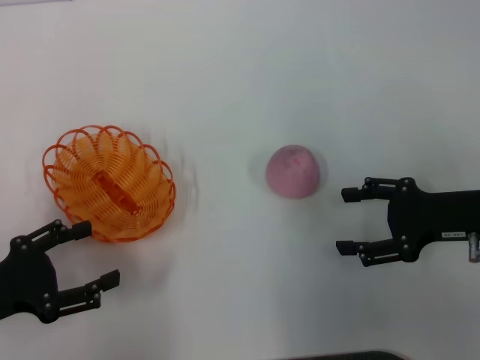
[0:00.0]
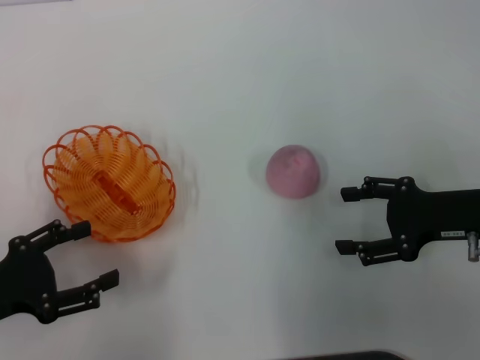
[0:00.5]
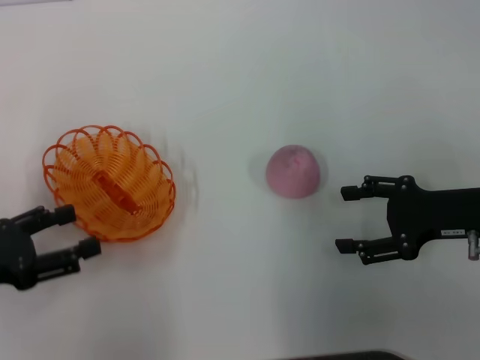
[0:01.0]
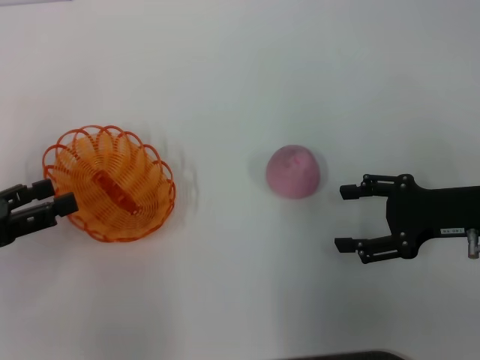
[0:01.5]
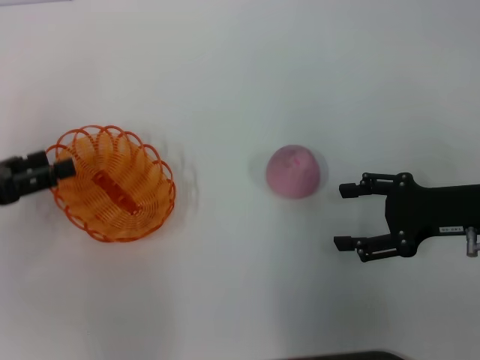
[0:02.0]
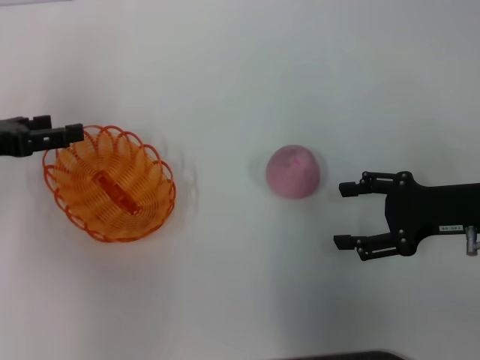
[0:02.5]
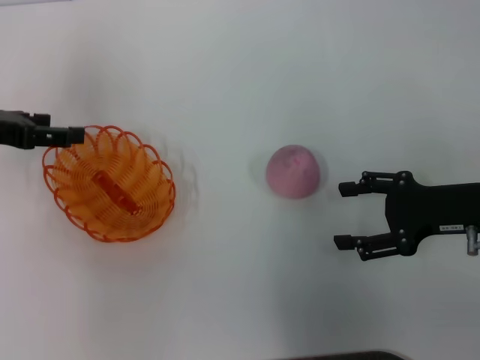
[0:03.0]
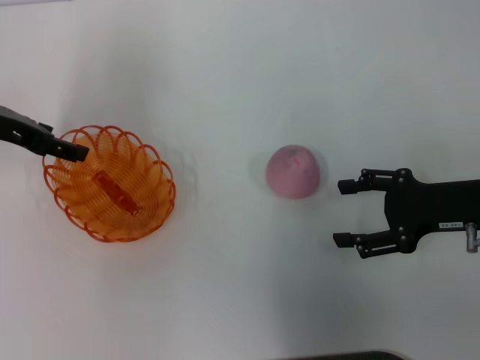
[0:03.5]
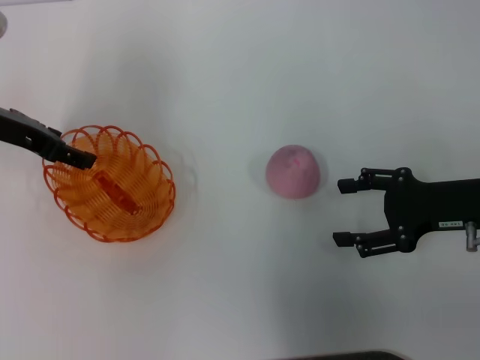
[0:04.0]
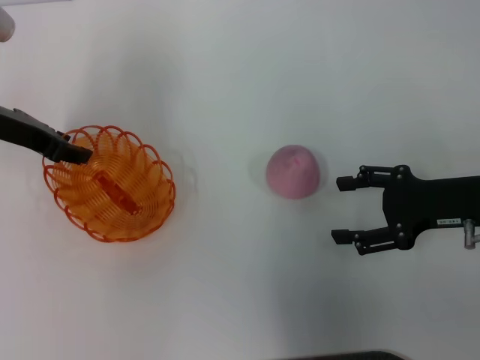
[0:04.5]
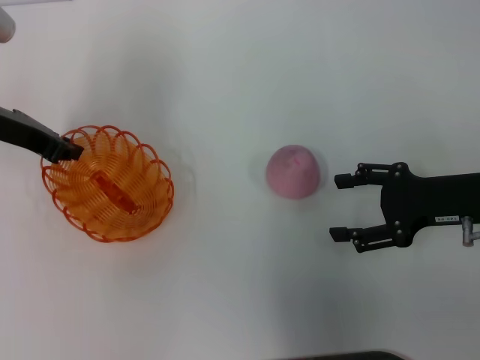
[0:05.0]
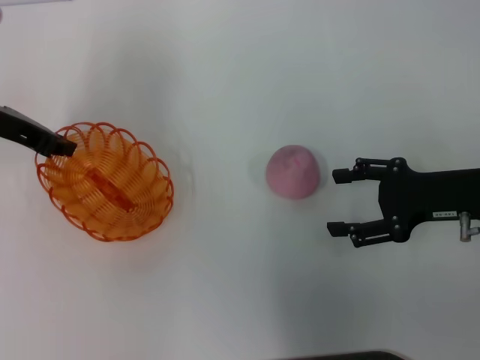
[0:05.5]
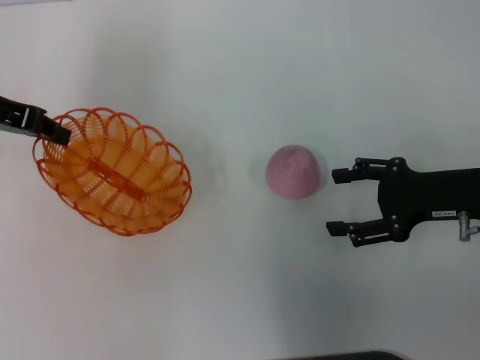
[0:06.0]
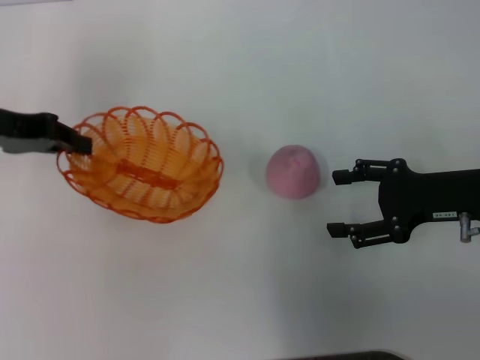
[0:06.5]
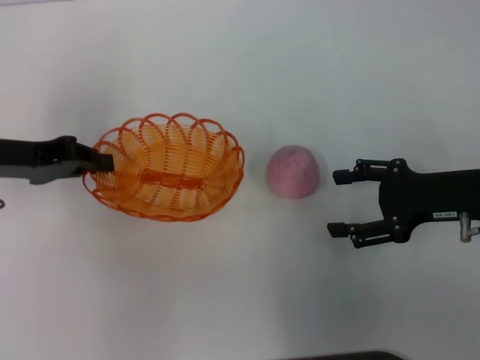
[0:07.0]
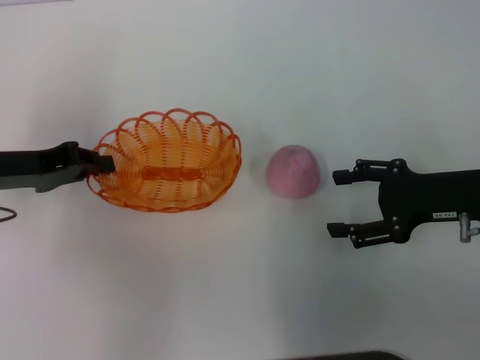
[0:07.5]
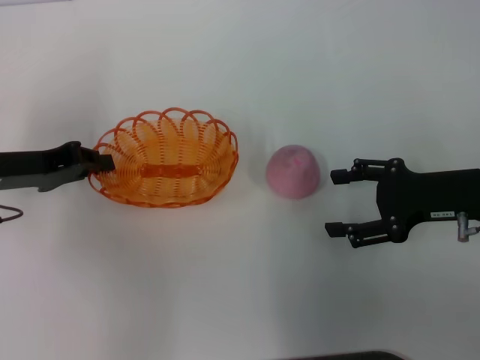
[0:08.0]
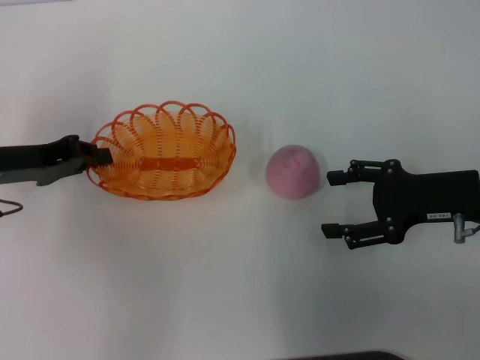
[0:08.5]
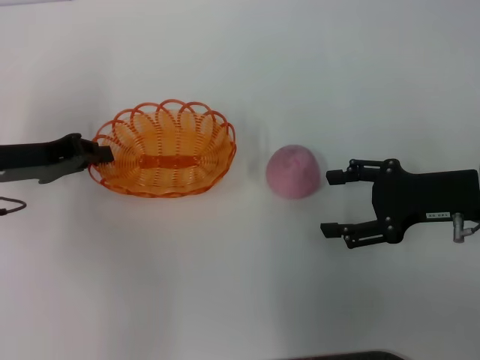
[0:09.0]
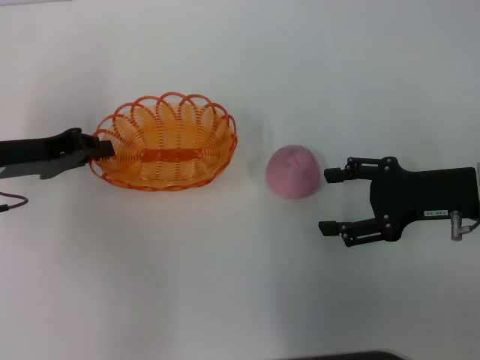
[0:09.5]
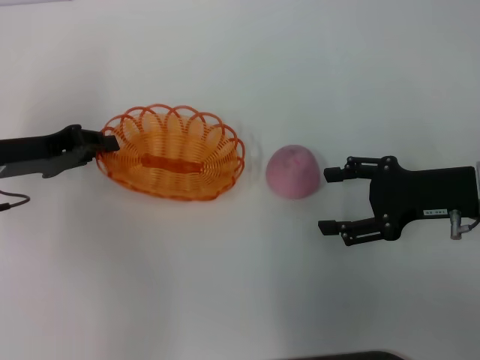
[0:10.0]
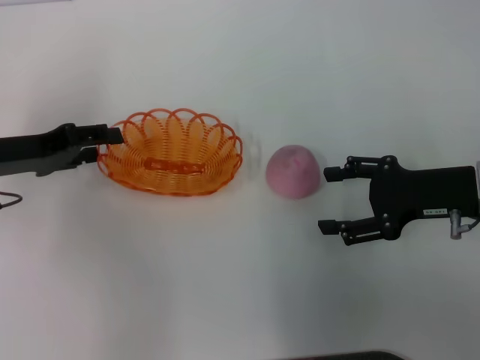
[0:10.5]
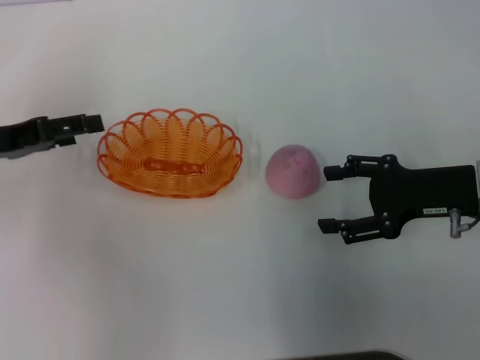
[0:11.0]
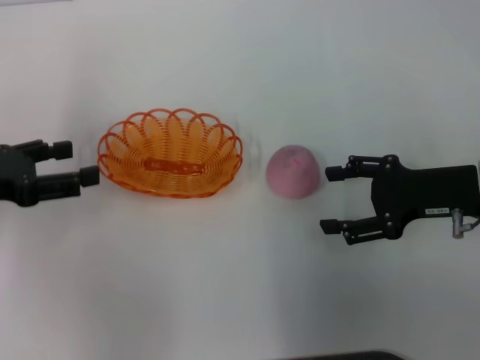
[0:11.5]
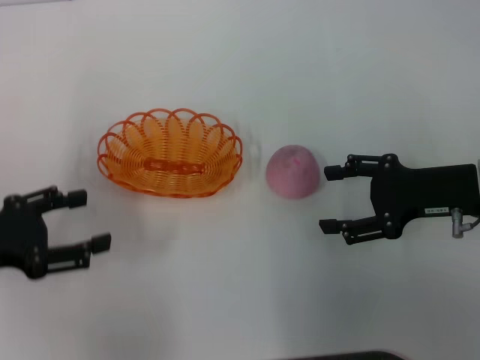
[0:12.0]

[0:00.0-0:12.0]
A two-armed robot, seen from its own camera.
Step, 0:00.0 to 0:05.5: Pick up the basket with the left gripper.
Step, 0:06.0 to 0:11.0: Place the basket in the center of view with the left gripper.
0:00.0 to 0:02.0: The left gripper shifts approximately 5 cm forward.
0:02.0 to 0:04.0: The left gripper travels forward and to the right by roughly 15 cm.
0:04.0 to 0:06.0: The left gripper closes.
0:06.0 to 0:08.0: The left gripper shifts some 10 cm downward and backward.
0:08.0 to 0:10.0: Neither gripper changes place.
0:10.0 to 0:12.0: The left gripper moves backward, about 10 cm, and opens up.

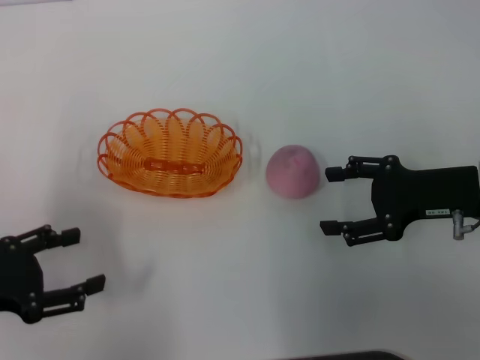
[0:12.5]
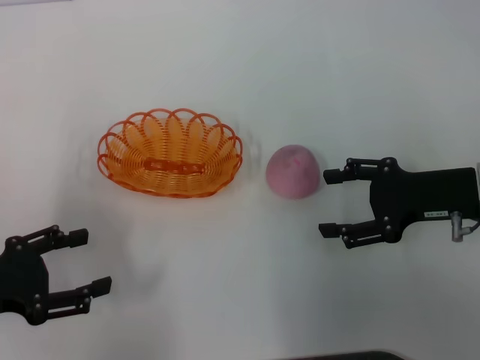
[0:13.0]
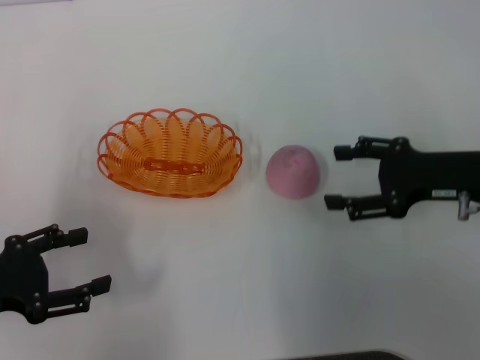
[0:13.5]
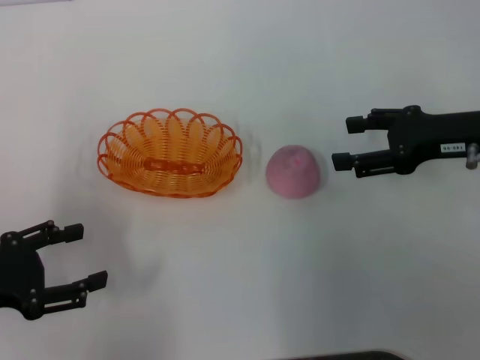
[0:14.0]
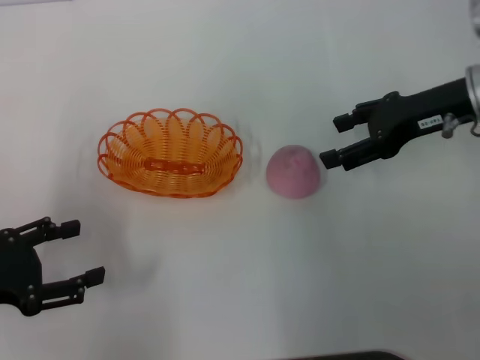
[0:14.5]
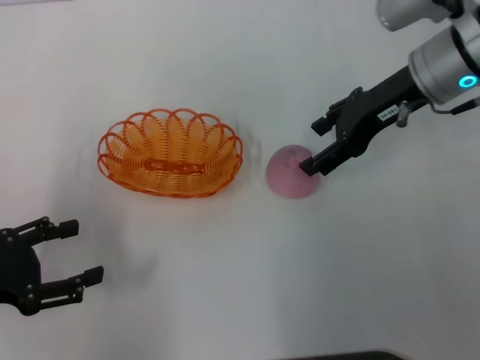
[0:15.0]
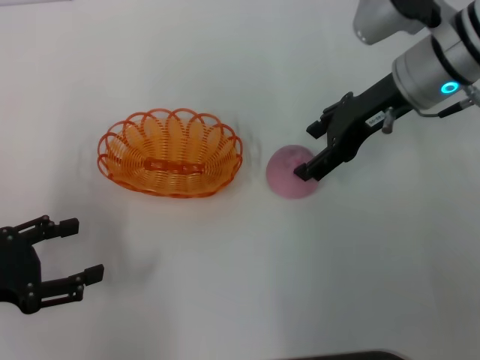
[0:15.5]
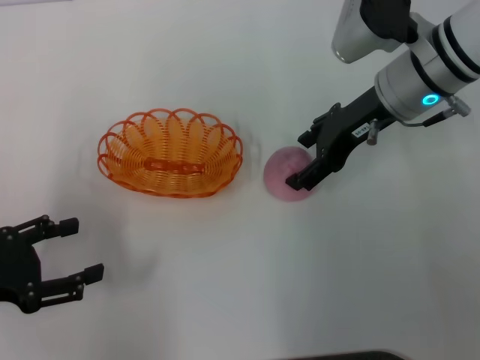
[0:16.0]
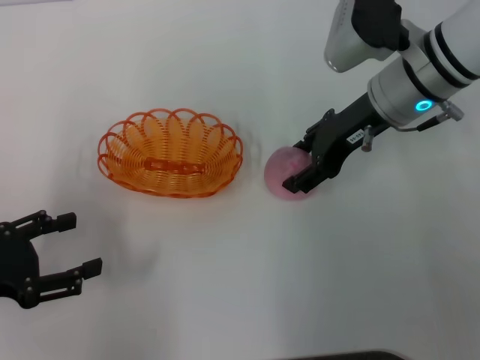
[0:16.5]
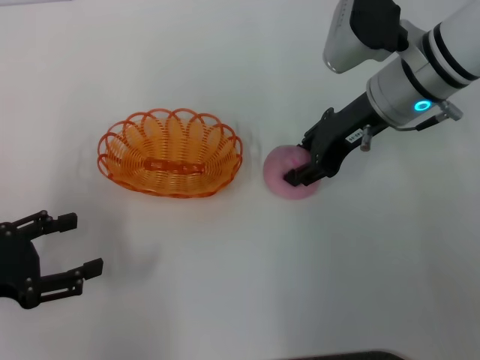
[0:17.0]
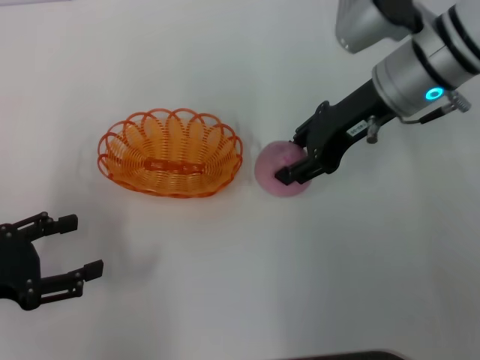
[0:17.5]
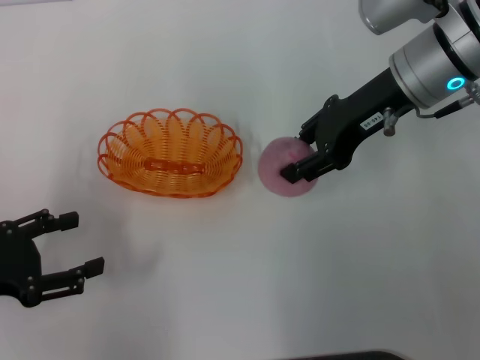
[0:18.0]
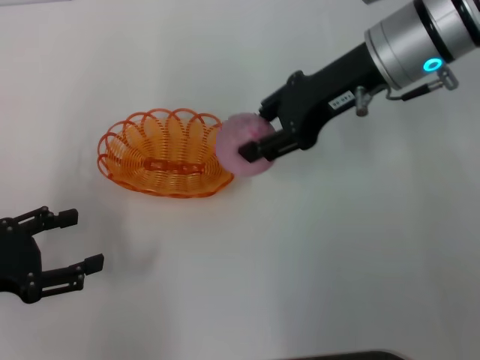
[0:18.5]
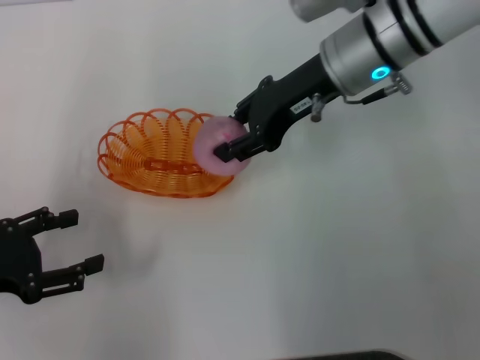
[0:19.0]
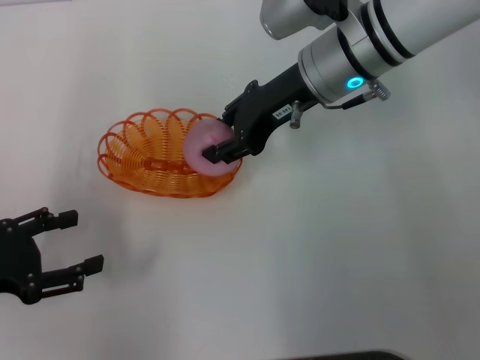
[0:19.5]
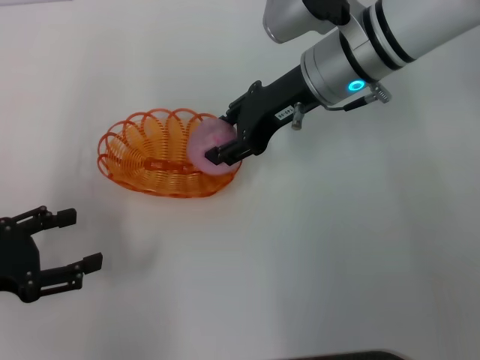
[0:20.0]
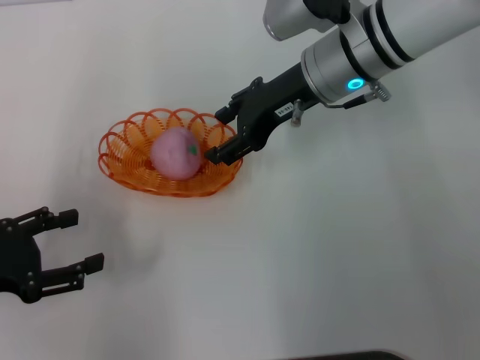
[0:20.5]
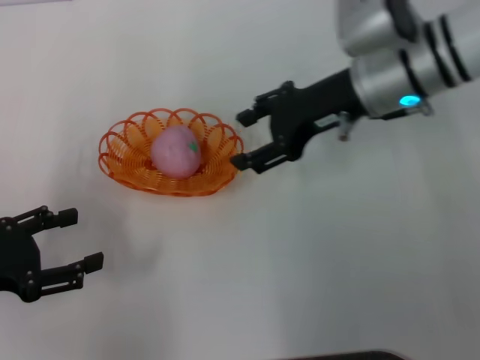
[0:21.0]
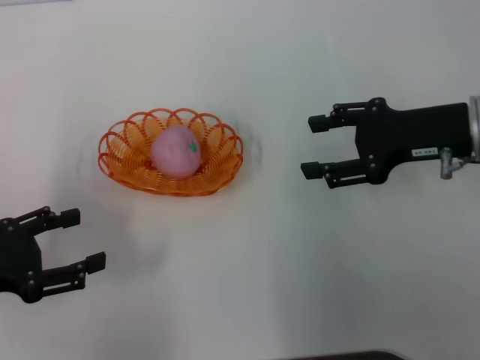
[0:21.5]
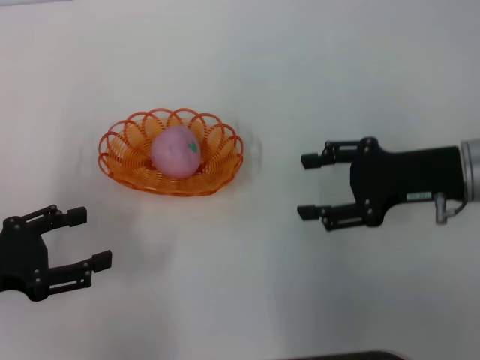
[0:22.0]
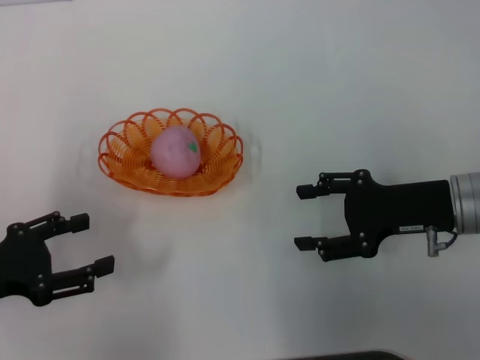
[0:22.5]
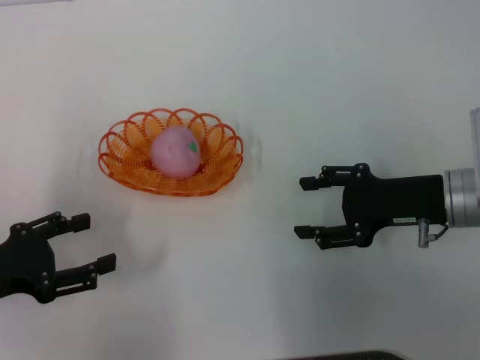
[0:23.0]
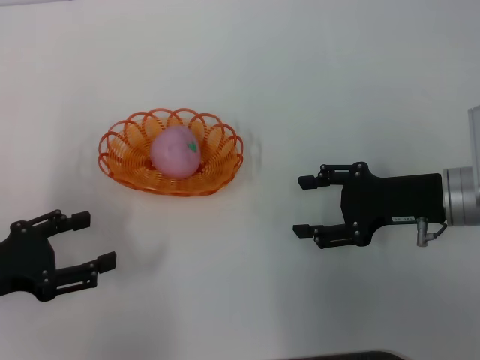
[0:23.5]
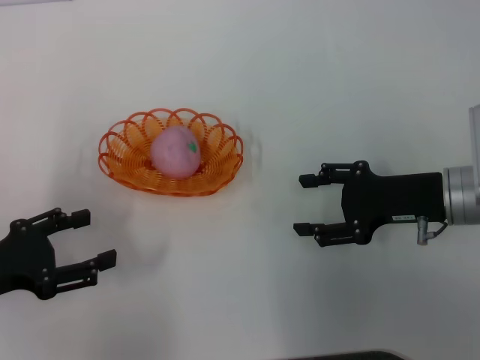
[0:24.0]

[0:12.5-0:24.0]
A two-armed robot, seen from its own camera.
Step, 0:12.5 to 0:17.5: Pick up the peach with the right gripper.
Step, 0:18.0 to 0:20.5: Place the peach into the basket with the right gripper.
0:12.5 to 0:14.5: The right gripper moves forward and upward, roughly 10 cm.
0:14.5 to 0:16.5: The right gripper is displaced to the left by roughly 10 cm.
0:16.5 to 0:18.5: The right gripper moves upward, some 5 cm, and closes its fingers.
0:18.5 to 0:20.0: The right gripper changes place by roughly 5 cm.
0:20.0 to 0:22.0: The right gripper moves to the right, backward and downward, about 20 cm, and opens up.
0:22.0 to 0:24.0: There are only small adjustments of the grippers.

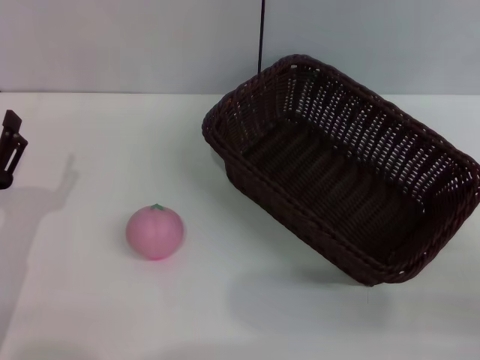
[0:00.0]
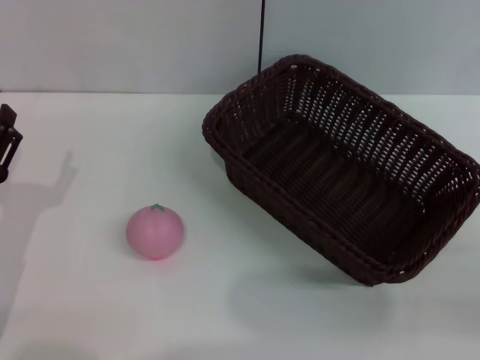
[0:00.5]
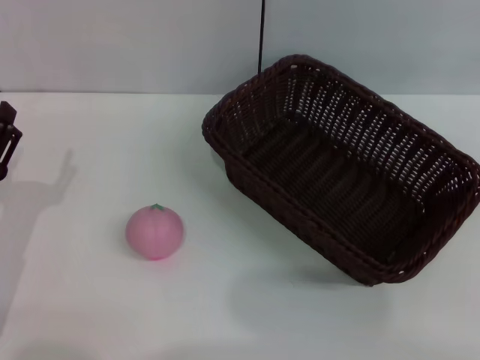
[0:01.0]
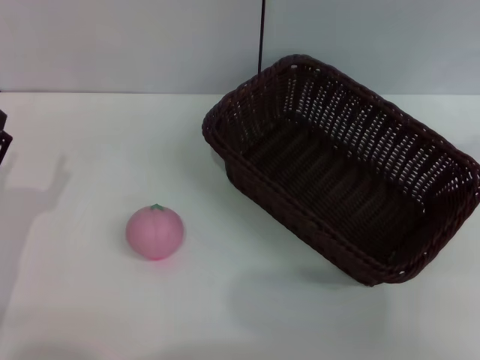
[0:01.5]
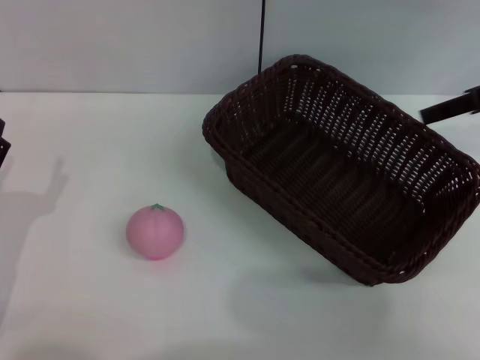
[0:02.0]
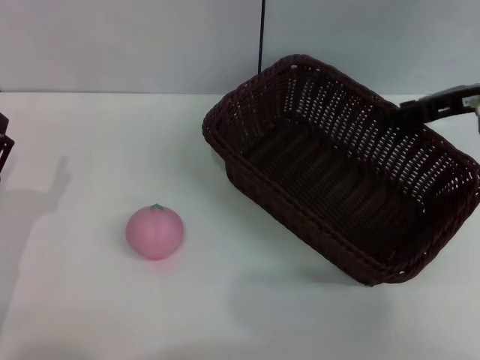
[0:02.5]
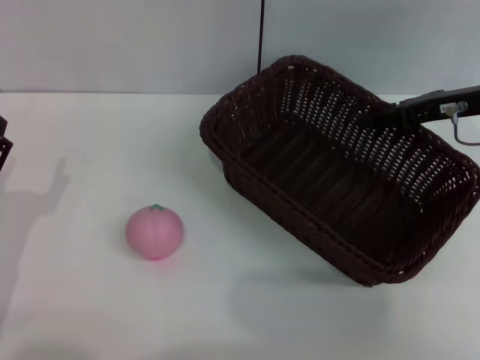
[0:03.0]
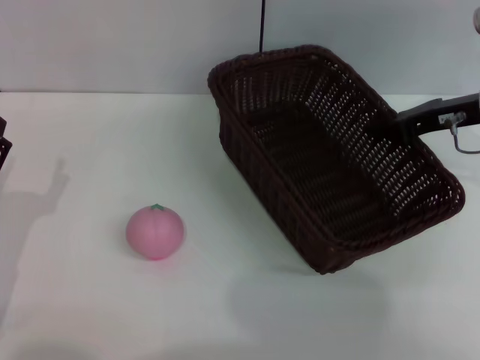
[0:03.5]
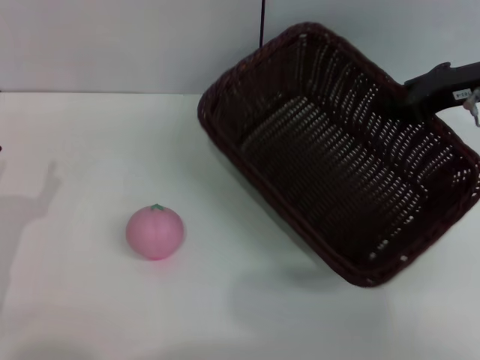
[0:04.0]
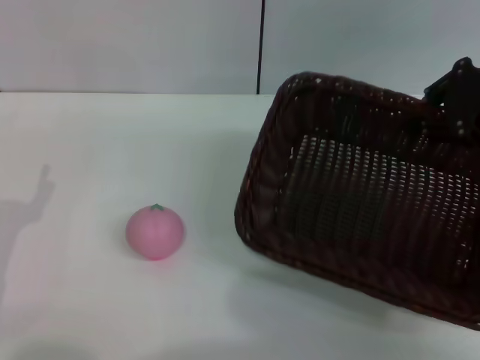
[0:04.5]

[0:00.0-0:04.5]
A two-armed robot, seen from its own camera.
Step, 0:00.0 to 0:04.0: Pick up the dark basket with the right gripper.
0:00.0 to 0:02.0: The right gripper heads forward and upward, covering roughly 25 cm.
0:02.0 to 0:04.5: The right gripper reaches about 5 cm downward, then returns, and closes.
